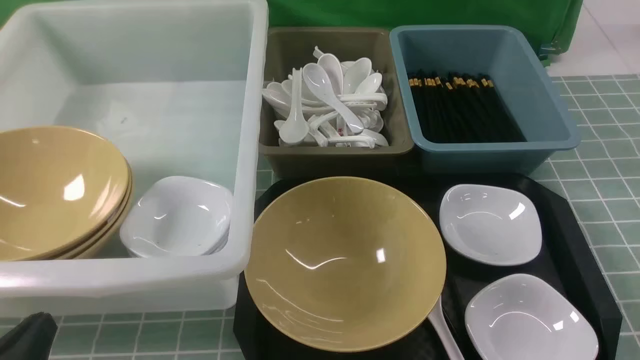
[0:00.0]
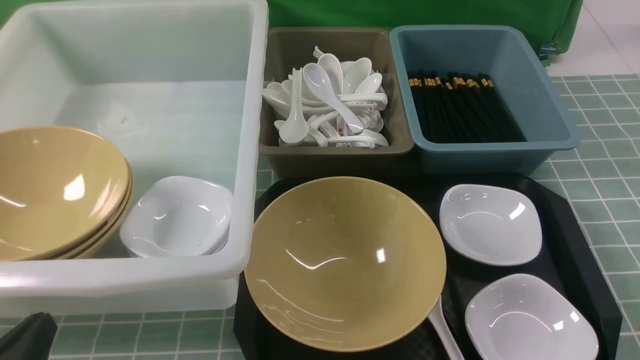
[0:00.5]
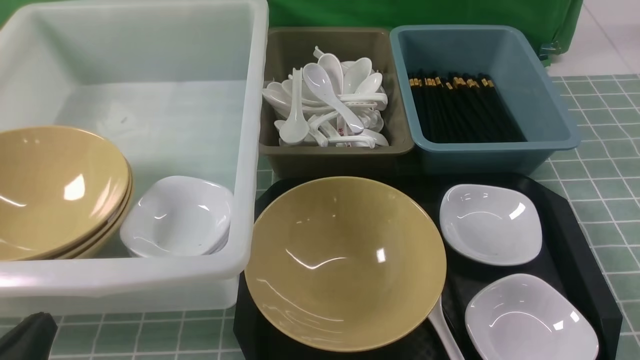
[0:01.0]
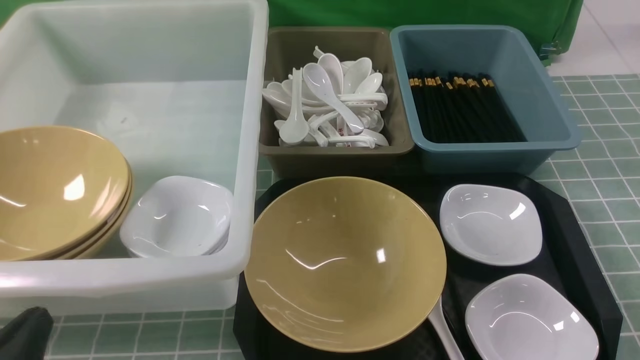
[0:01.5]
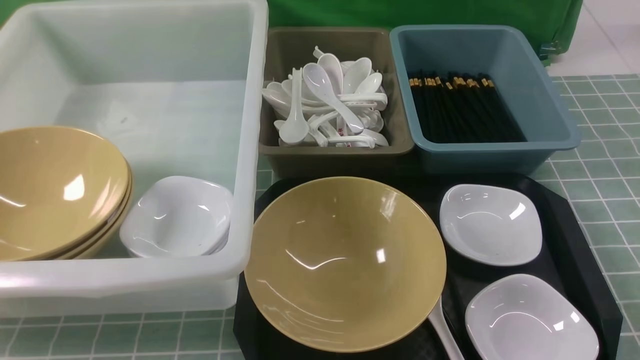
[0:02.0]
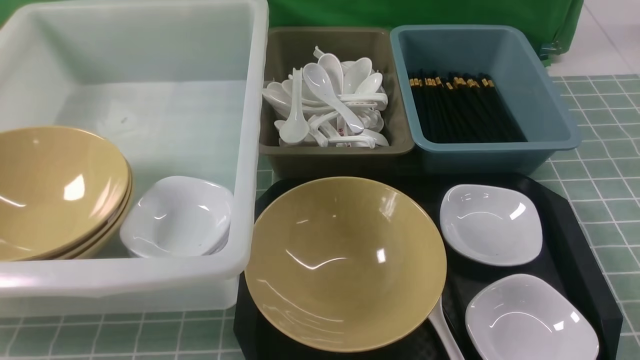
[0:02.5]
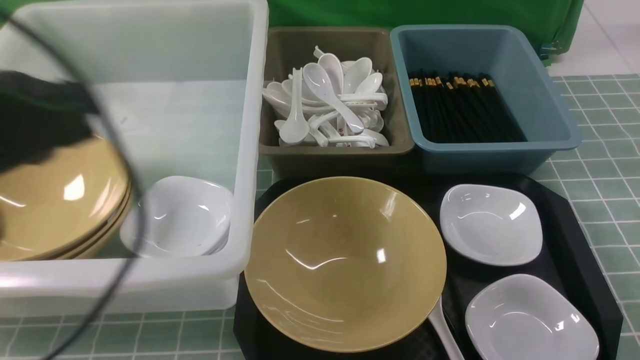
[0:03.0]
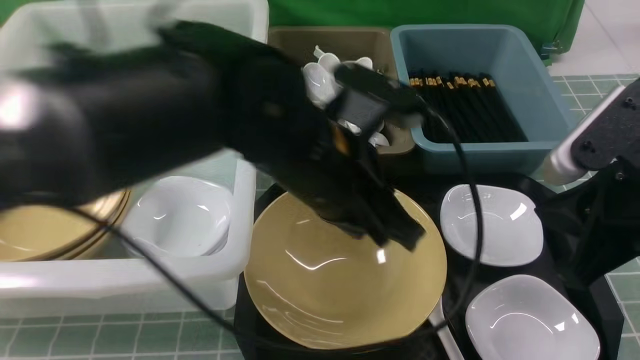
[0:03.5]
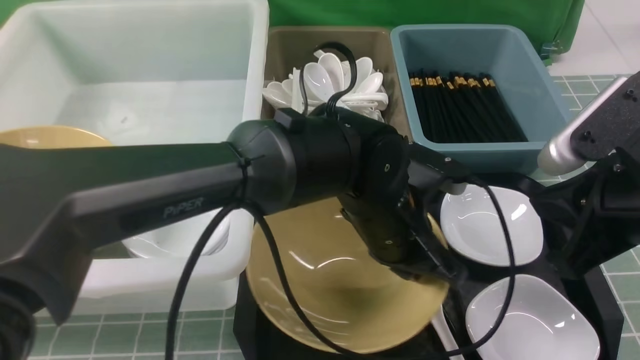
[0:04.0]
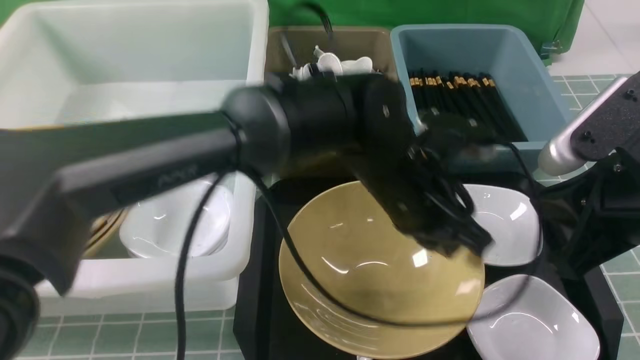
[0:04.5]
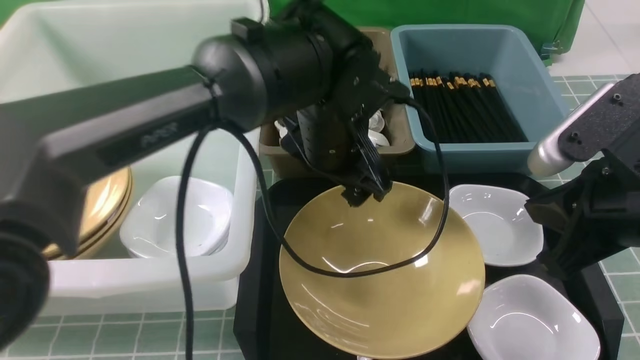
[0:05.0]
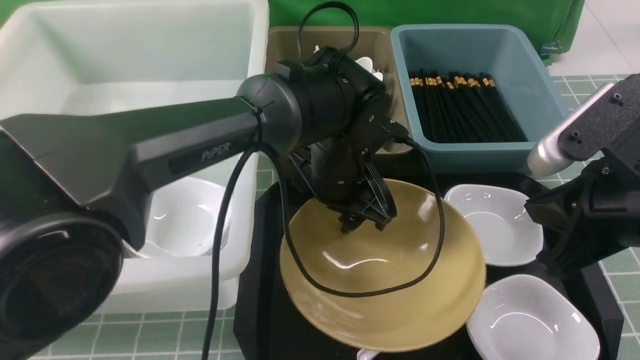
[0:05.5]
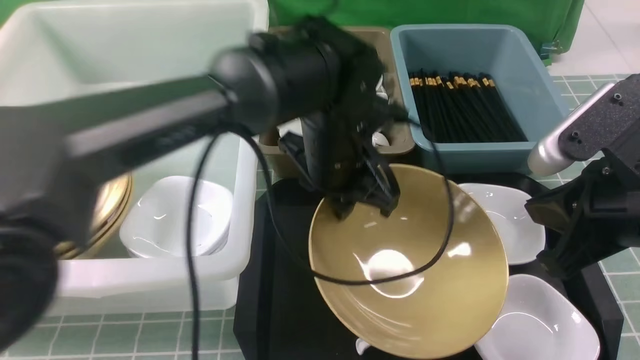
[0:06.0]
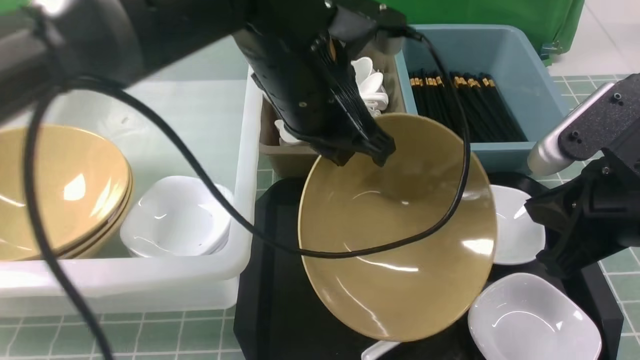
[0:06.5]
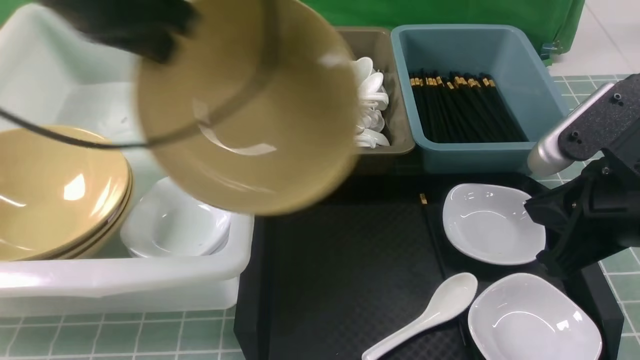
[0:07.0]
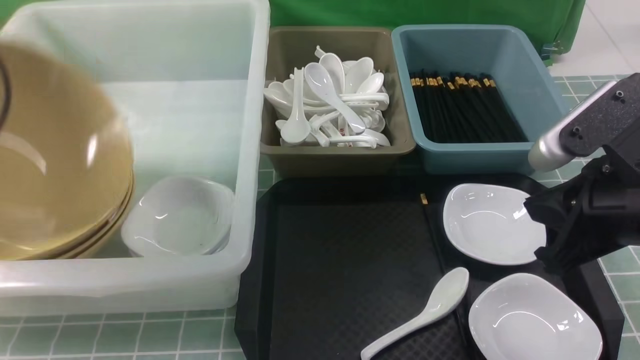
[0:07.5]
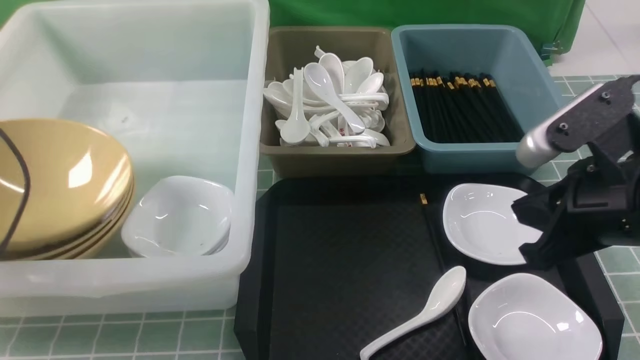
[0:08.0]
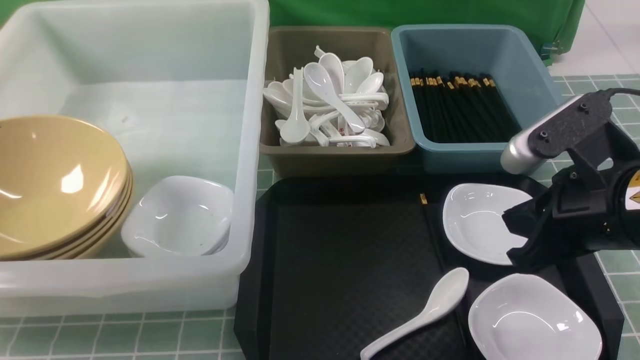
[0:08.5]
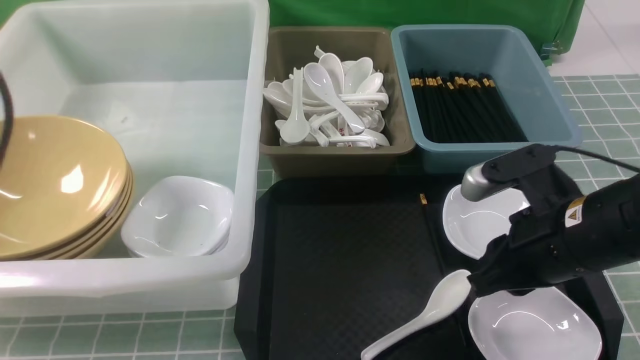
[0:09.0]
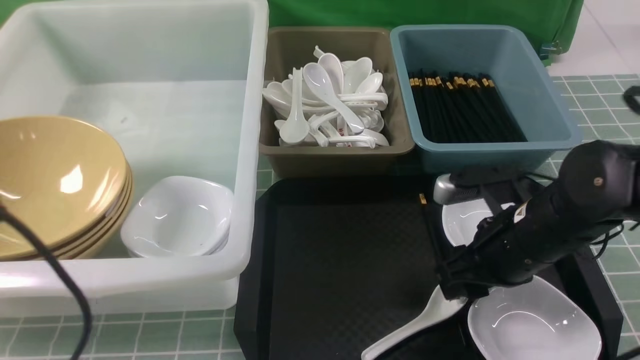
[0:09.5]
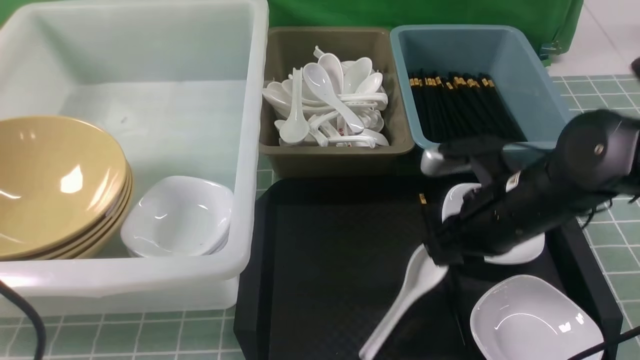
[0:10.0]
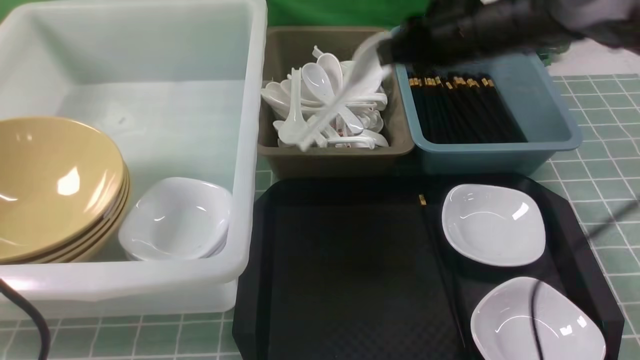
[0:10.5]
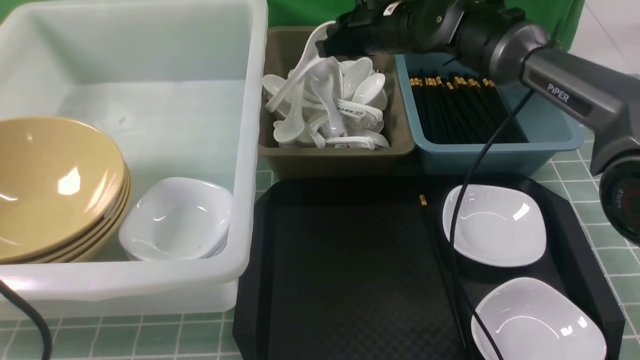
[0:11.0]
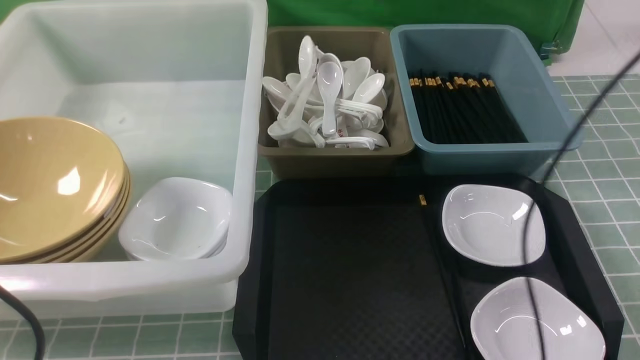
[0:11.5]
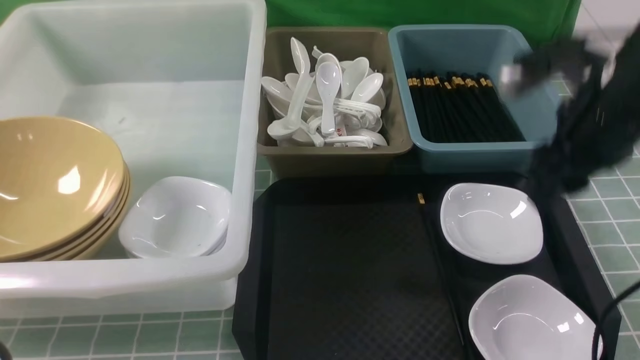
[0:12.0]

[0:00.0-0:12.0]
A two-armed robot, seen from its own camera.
Task of the whole recording: on blue table put chopsticks spoon bowls plates into blue grey white boxes.
Step, 0:00.0 to 0:05.5: use the left arm to grab the yellow noodle bowl on the left.
Step, 0:06.0 to 0:08.0: use the left arm to put the noodle bowl into the large storage box on the left.
Step, 0:08.5 to 0:10.0: use the right arm to grab the soup spoon in the middle.
Step, 0:10.5 to 0:11.0: use the right arm to put the soup spoon into the small storage box in the middle.
0:00.0 to 0:02.0: The left gripper travels upward by roughly 5 cm.
0:02.0 to 0:04.0: The right gripper goes approximately 20 cm forward, to the left and upward; the left gripper travels to the right and forward by about 40 cm.
0:04.0 to 0:06.0: The left gripper travels forward, to the left and upward by about 10 cm, and opens, then closes once more.
0:06.0 to 0:08.0: The left gripper moves to the left, roughly 40 cm, and opens up.
0:08.0 to 0:10.0: The left gripper heads backward and to the right, covering about 20 cm, and closes up. The right gripper goes approximately 10 cm forward, downward and to the left, and opens, then closes again.
0:10.0 to 0:12.0: The right gripper shifts about 5 cm to the right, goes forward and returns, approximately 20 cm each way, and opens up.

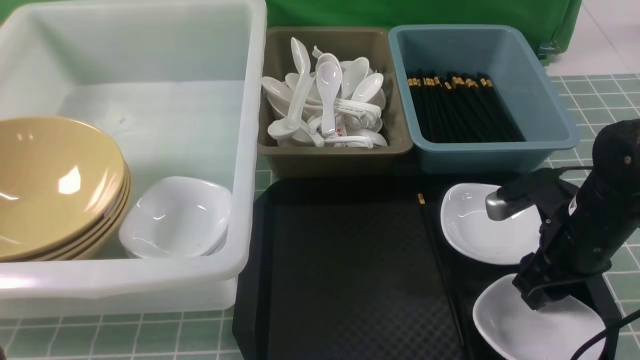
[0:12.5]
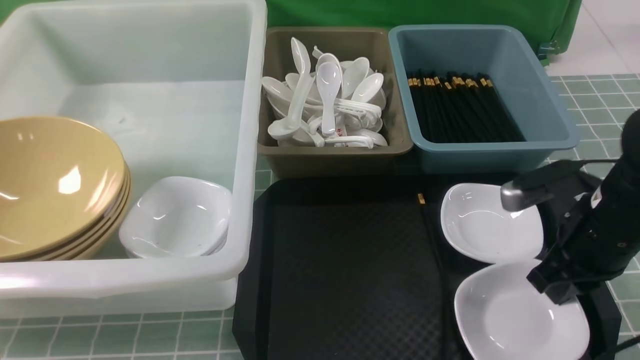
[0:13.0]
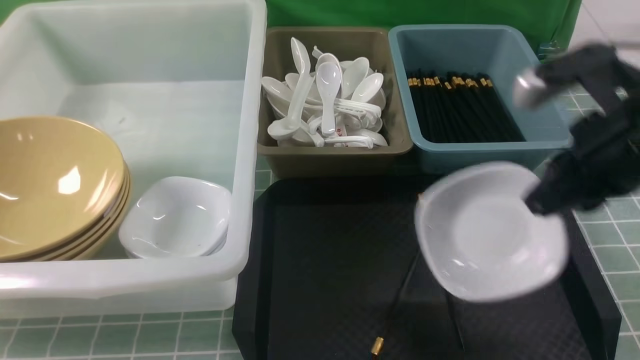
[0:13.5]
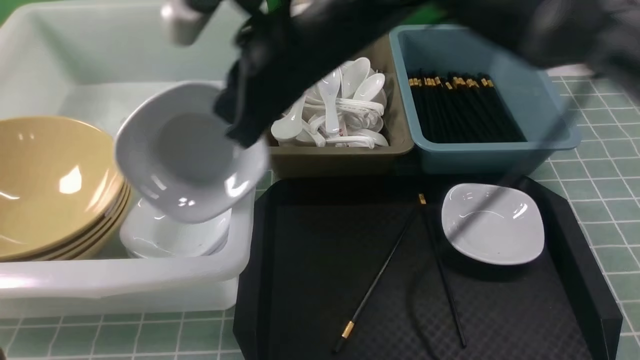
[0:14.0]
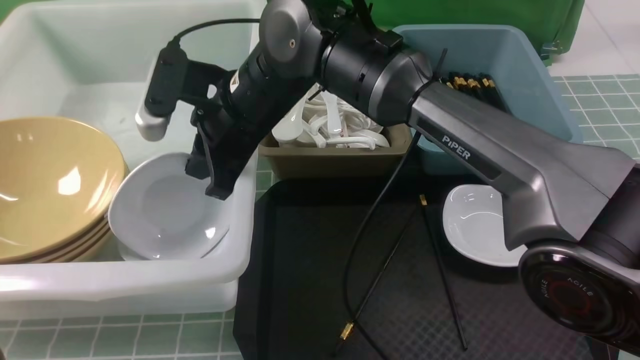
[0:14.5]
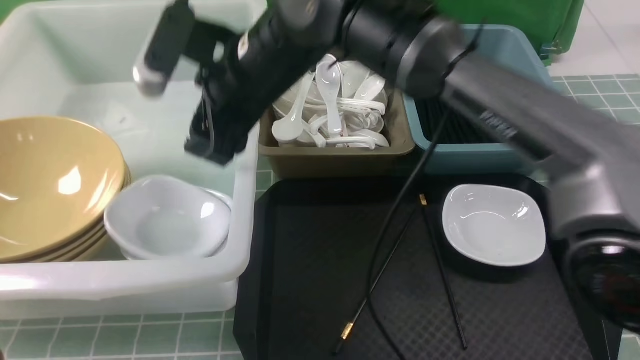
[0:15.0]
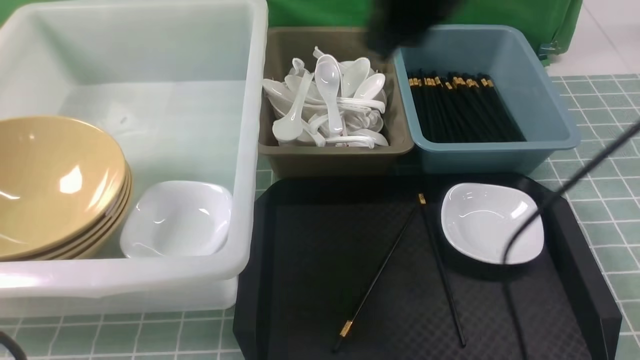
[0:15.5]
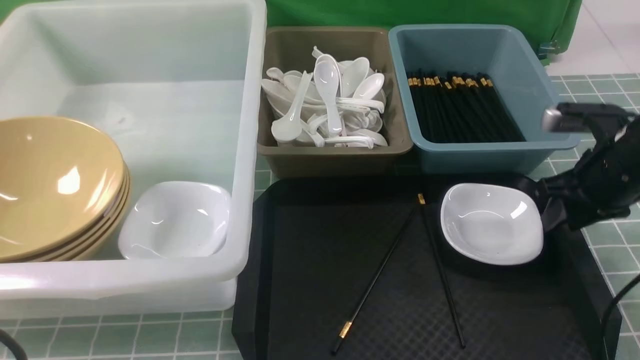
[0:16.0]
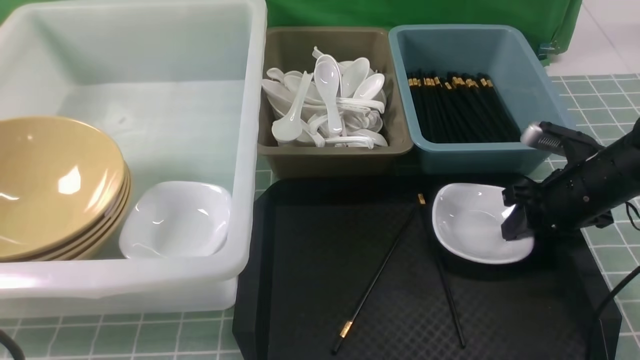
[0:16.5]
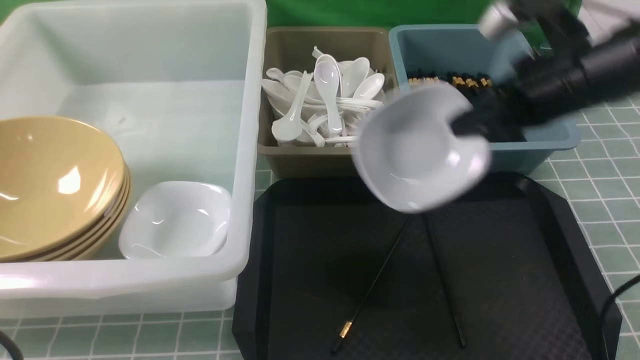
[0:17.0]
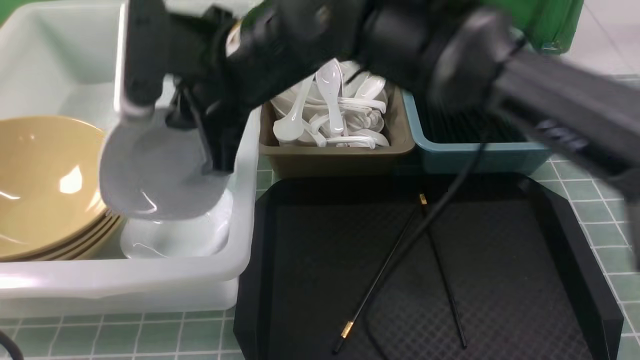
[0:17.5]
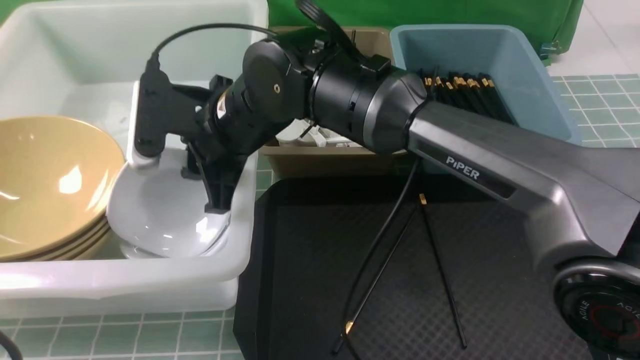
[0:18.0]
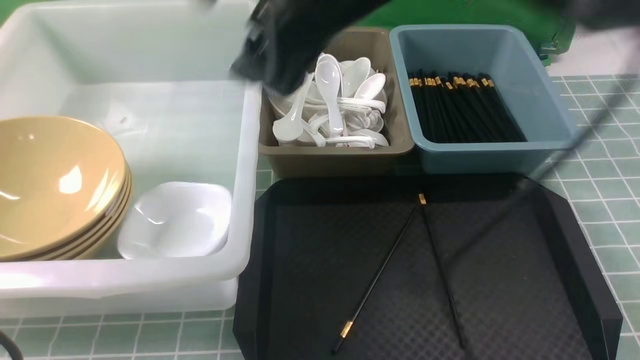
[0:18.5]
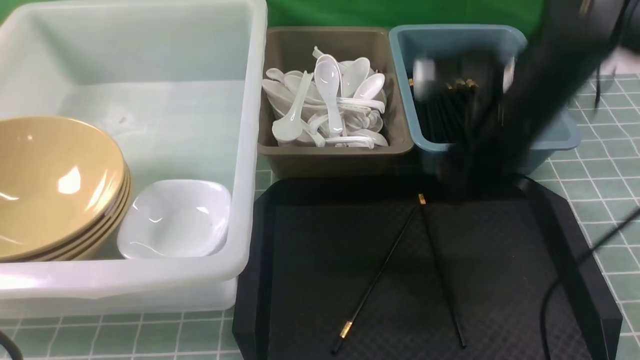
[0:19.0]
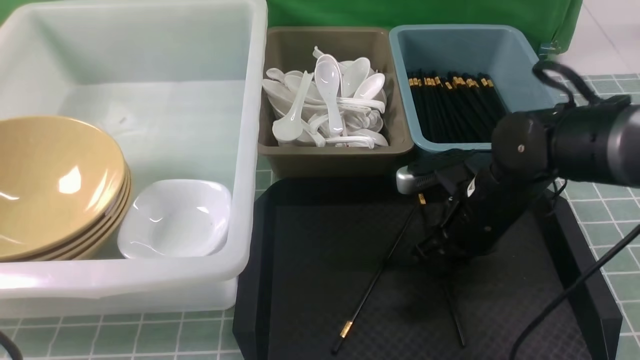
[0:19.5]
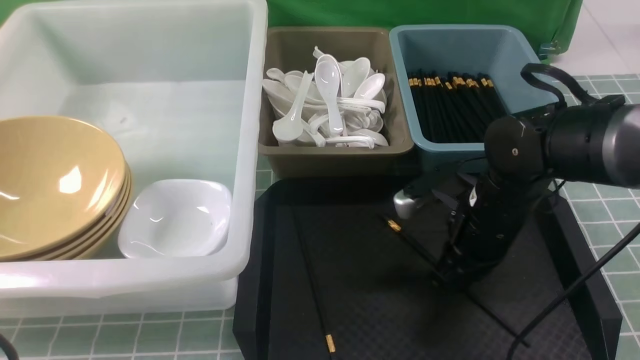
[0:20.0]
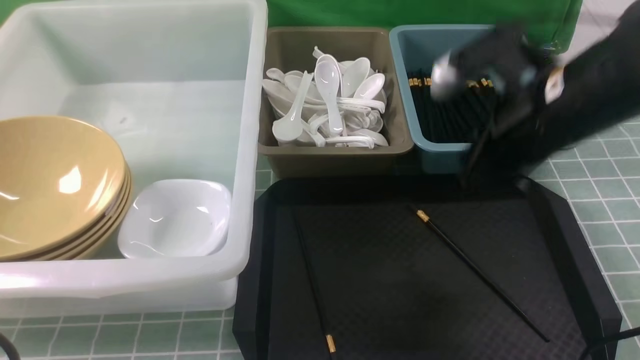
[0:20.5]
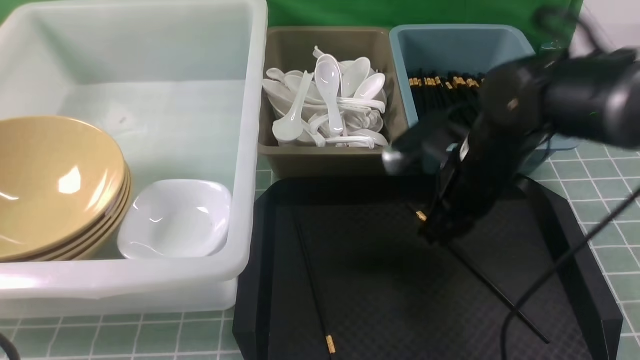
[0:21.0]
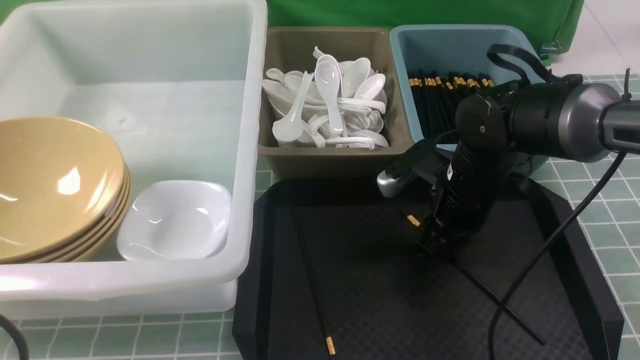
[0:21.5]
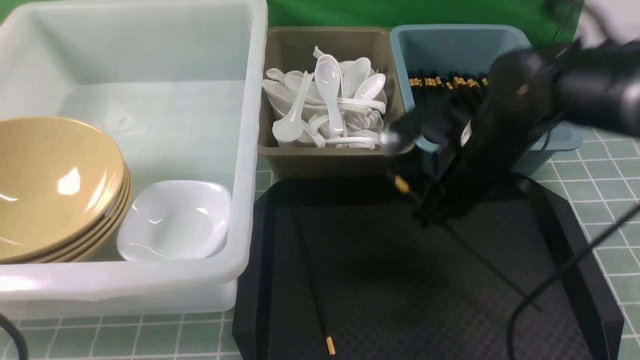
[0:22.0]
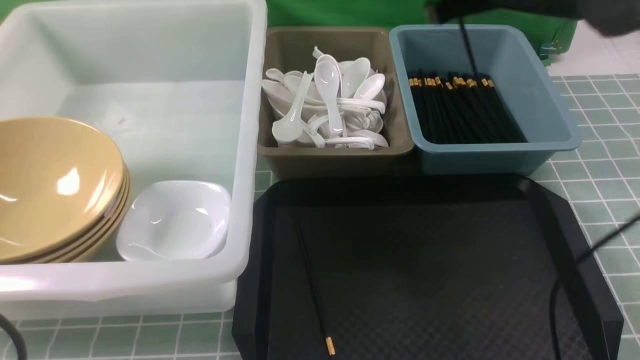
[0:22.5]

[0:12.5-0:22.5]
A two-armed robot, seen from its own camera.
Task of the whole recording: on blue table put chopsticks spoon bowls plates into blue grey white boxes.
Step, 0:13.0 to 0:15.0: use the right arm to put the plate into the large storage box on the left.
Step, 0:15.5 to 0:16.5: use the right arm to grab the plate.
Step, 0:17.0 to 0:18.0: use the right arm to put the plate into the large storage box on the left.
Step, 0:18.5 to 0:21.5: use the right arm to grab a chopstick.
0:12.5 to 0:14.5: The right gripper travels to the left by some 30 cm, and closes up.
0:14.5 to 0:16.5: The right gripper is displaced to the right by approximately 35 cm, and opens, then closes once more.
0:16.5 to 0:18.5: The right gripper heads to the left and upward, covering about 35 cm, and opens.
0:18.5 to 0:20.5: The right gripper goes some 15 cm to the right and downward, and closes its fingers.
0:20.5 to 0:22.5: The right gripper shifts some 10 cm forward, travels downward and back again, roughly 15 cm each way, and opens, then closes again.
